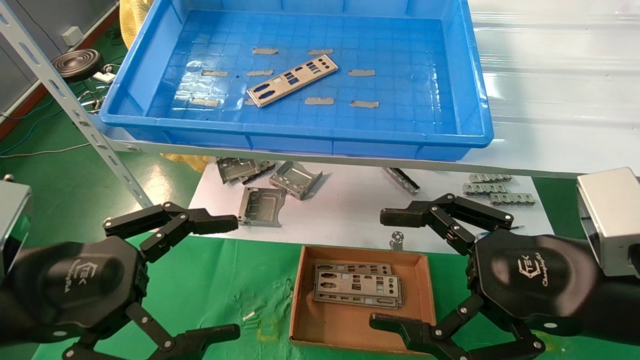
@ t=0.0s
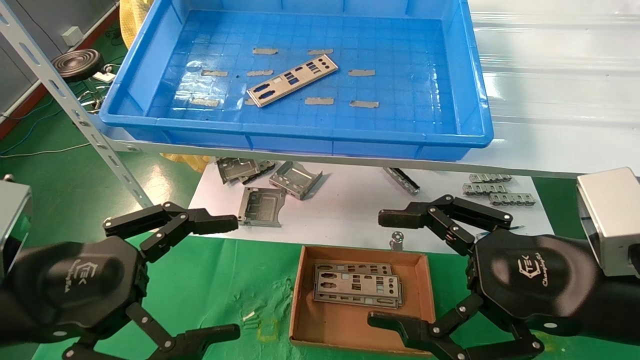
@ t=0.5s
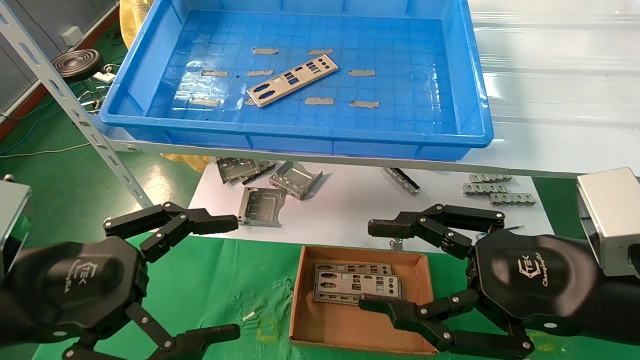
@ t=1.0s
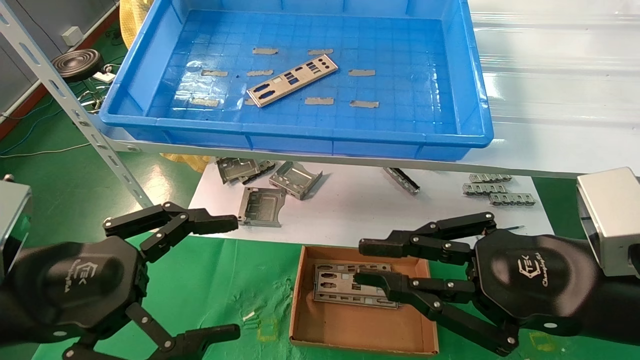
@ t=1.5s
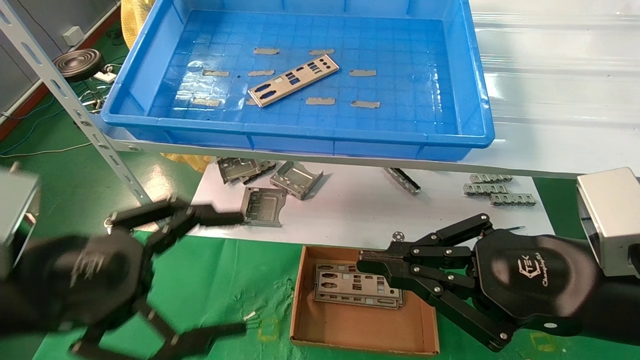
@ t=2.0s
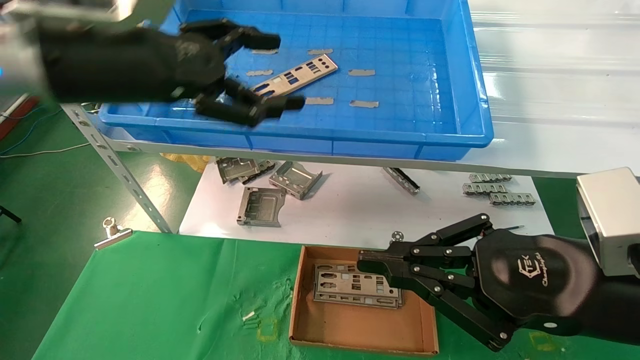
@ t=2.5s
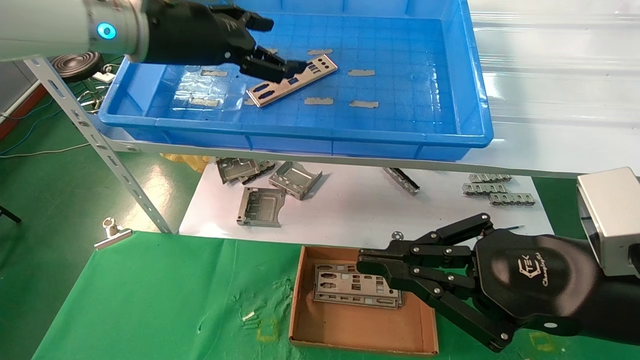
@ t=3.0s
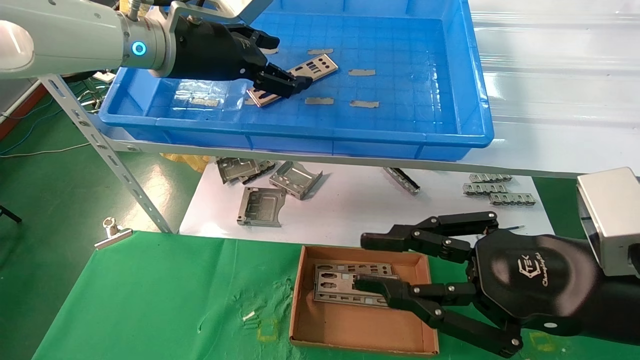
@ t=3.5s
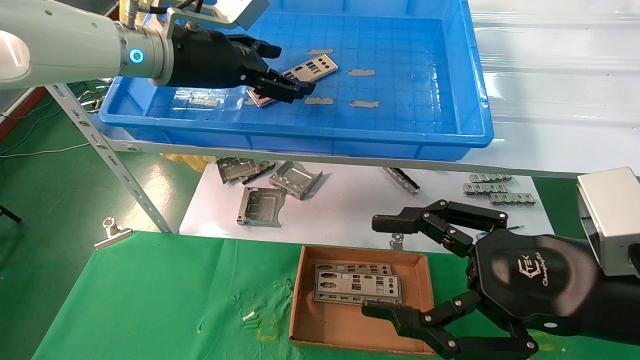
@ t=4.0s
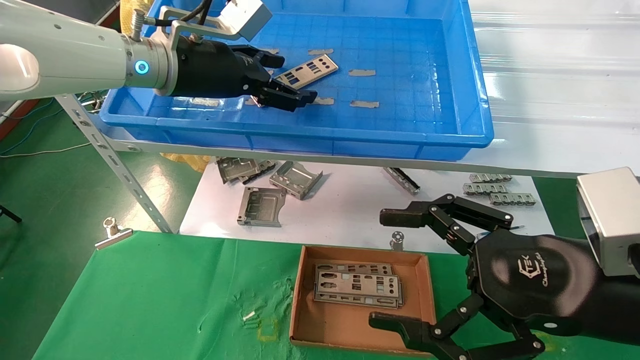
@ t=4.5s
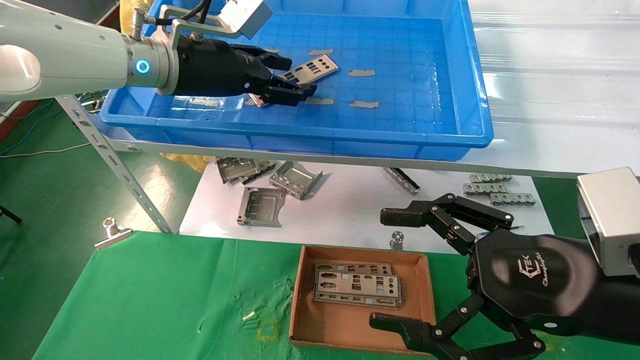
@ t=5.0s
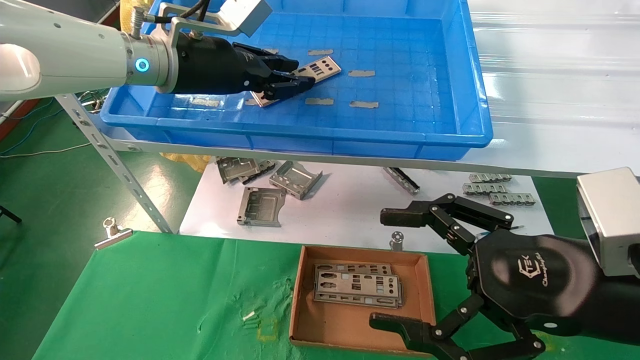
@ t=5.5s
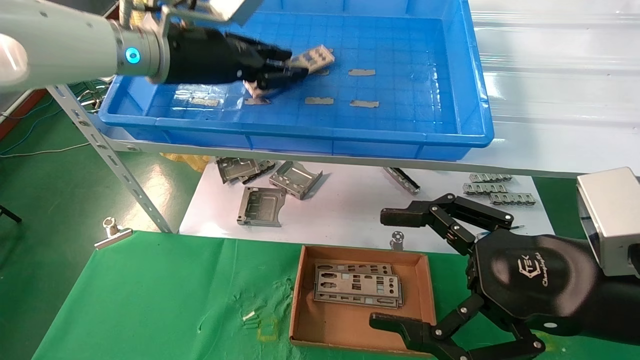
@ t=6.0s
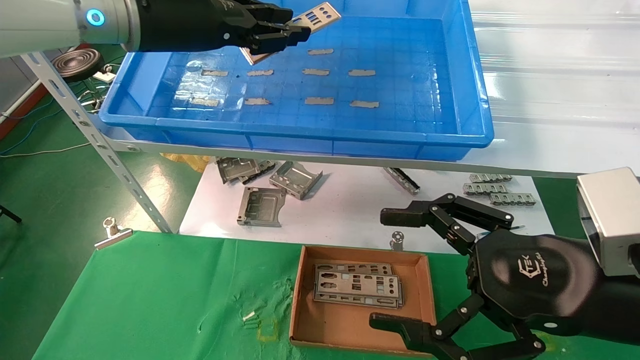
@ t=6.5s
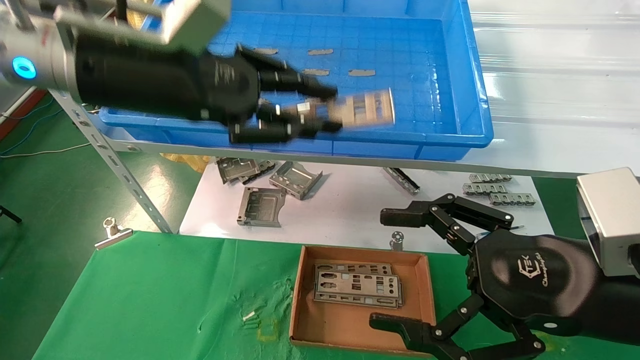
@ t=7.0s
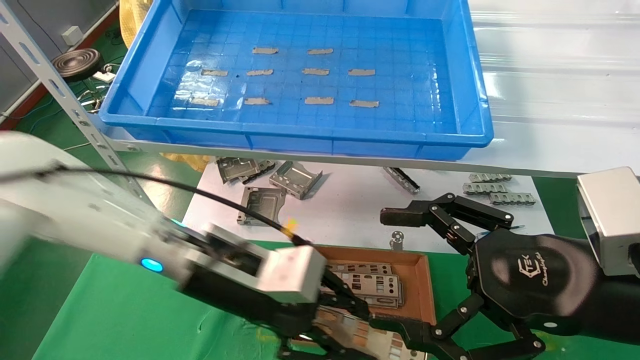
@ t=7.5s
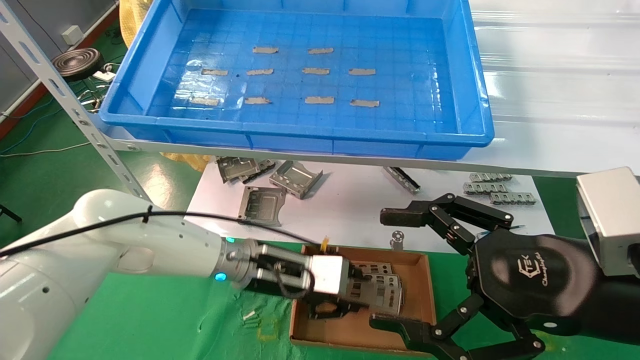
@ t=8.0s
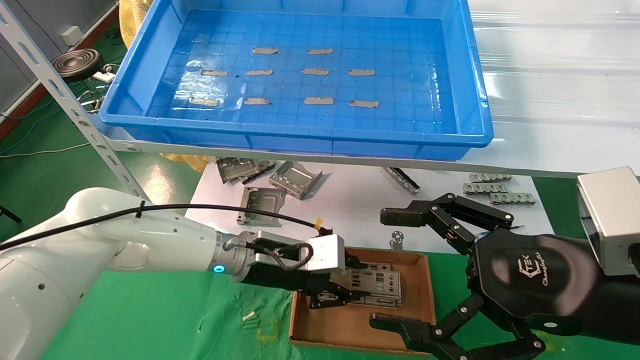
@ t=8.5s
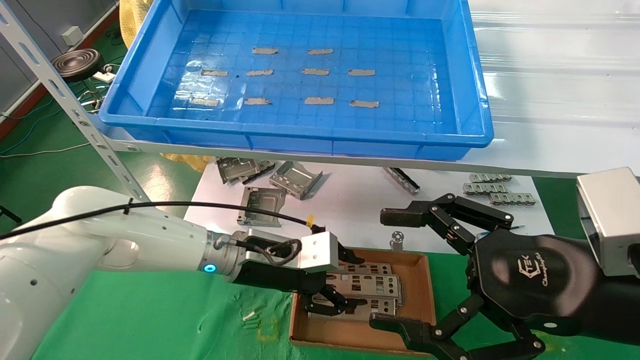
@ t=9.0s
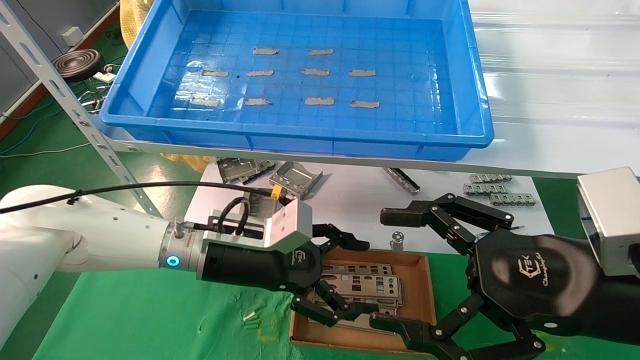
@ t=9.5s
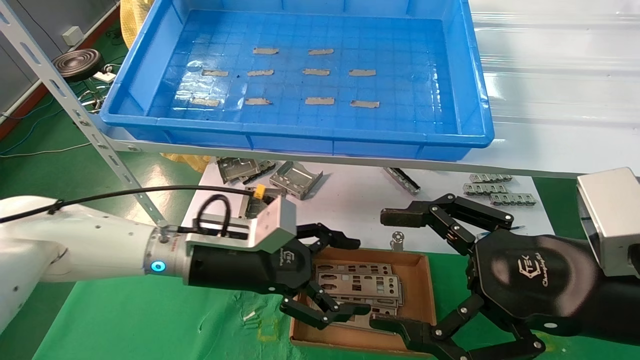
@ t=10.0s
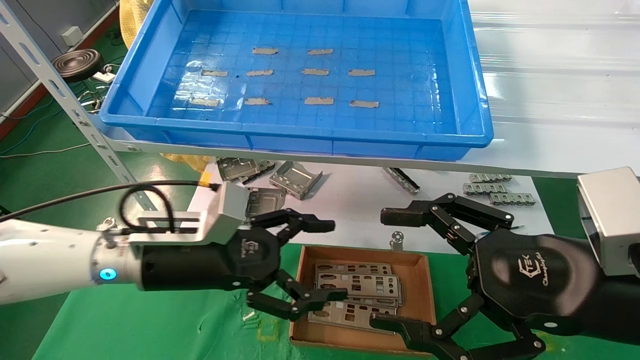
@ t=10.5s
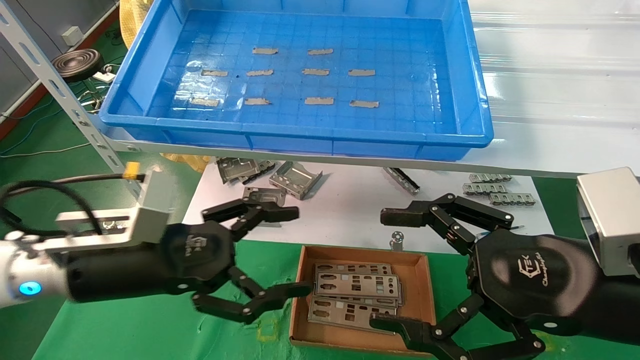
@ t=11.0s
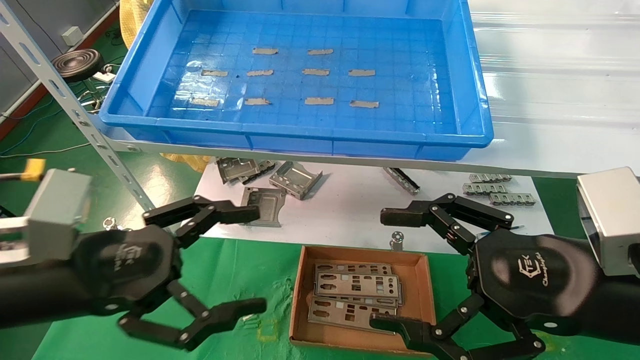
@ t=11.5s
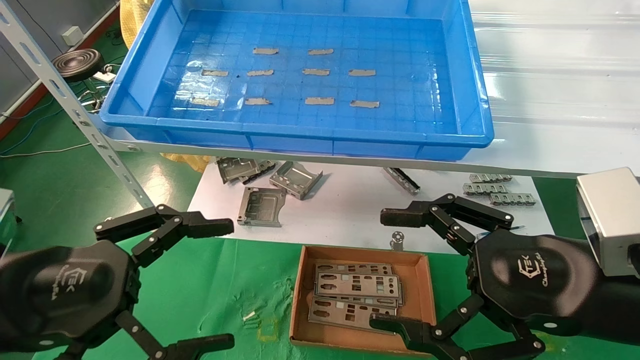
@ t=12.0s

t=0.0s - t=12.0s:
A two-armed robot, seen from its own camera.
Task of the whole recording: pick up the parts on the tray and put them in the cardboard box.
Step, t=2.5s - t=5.0s: Pick up the IO bracket from the container box.
Step, t=5.5s - t=9.0s: Place the IO bracket into the ingredient slot.
t=0.0s - t=2.0s: The right gripper closes up.
t=2.0s - t=4.0s: The left gripper shifts some 25 cm forward, upward and to the right, while the right gripper opens.
t=4.0s - t=6.0s: The right gripper opens its fingers, while the left gripper closes up.
t=6.0s - t=8.0s: The left gripper heads downward, covering approximately 30 cm.
t=8.0s - t=10.0s: The left gripper is displaced to the left by roughly 5 cm, and opens its fingers.
t=10.0s - t=12.0s: The left gripper is displaced backward and to the left by roughly 20 cm.

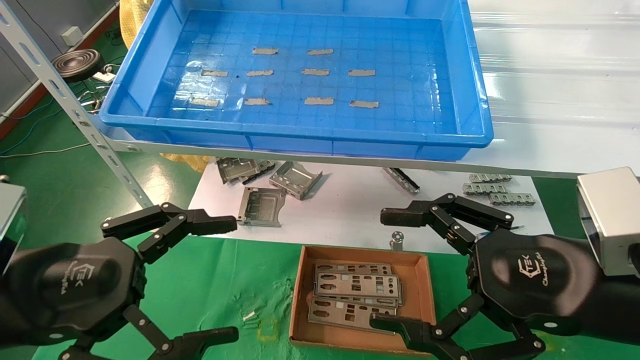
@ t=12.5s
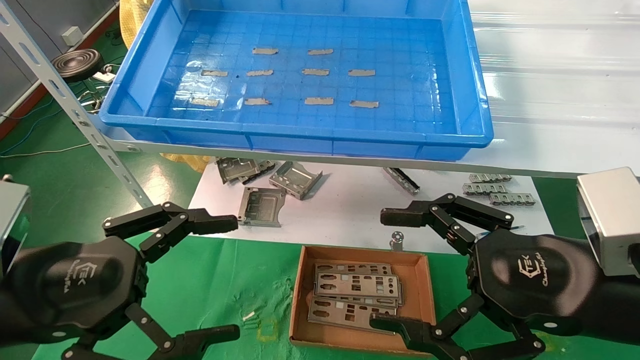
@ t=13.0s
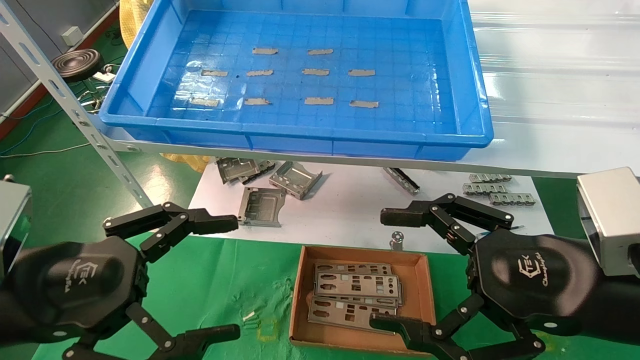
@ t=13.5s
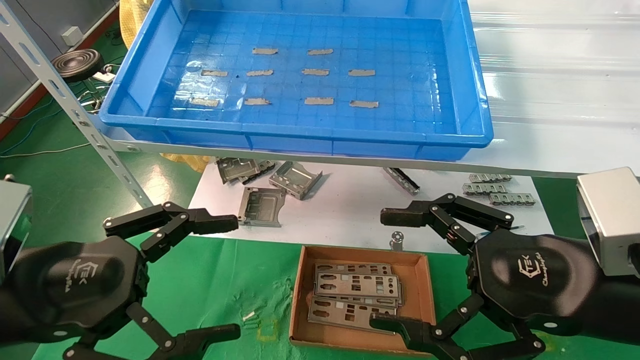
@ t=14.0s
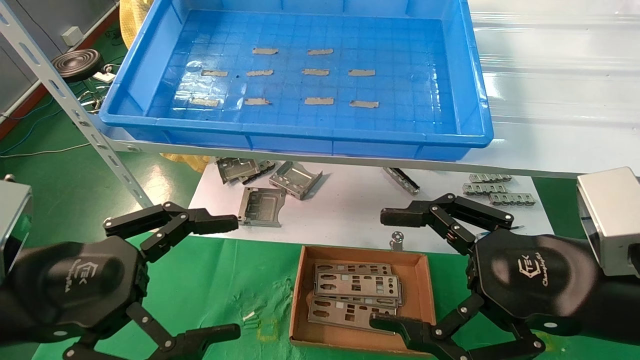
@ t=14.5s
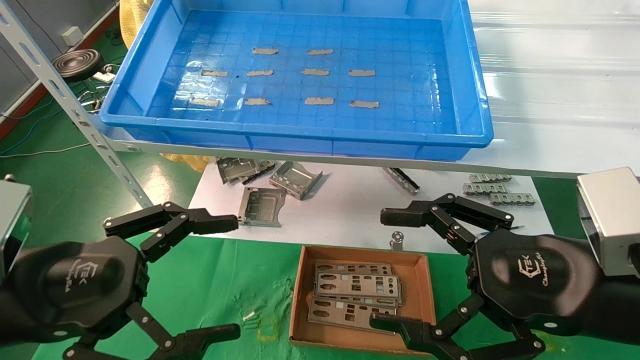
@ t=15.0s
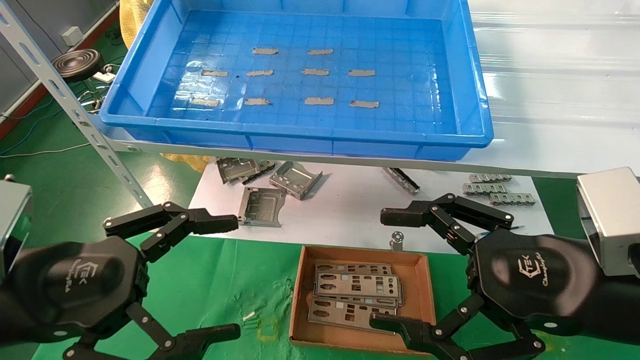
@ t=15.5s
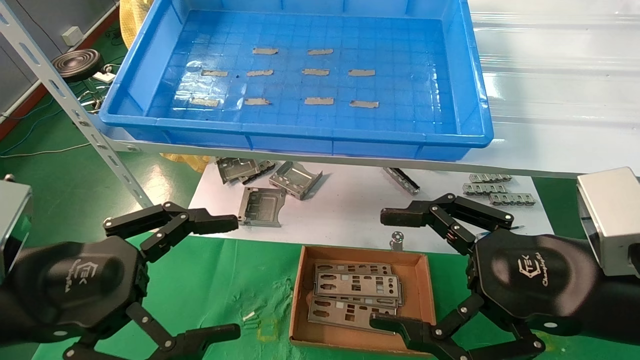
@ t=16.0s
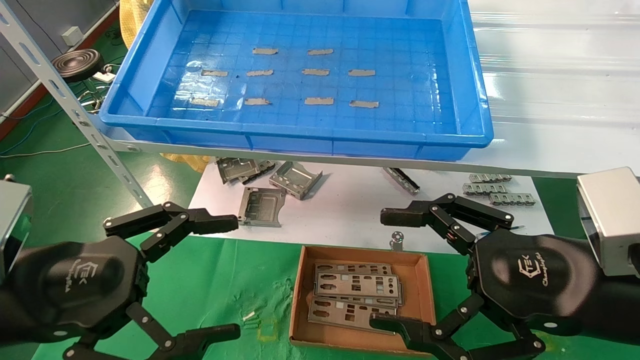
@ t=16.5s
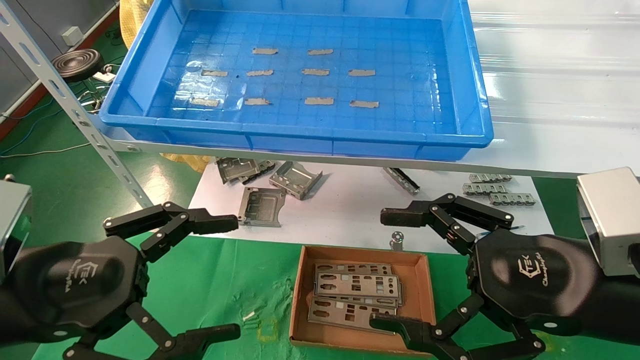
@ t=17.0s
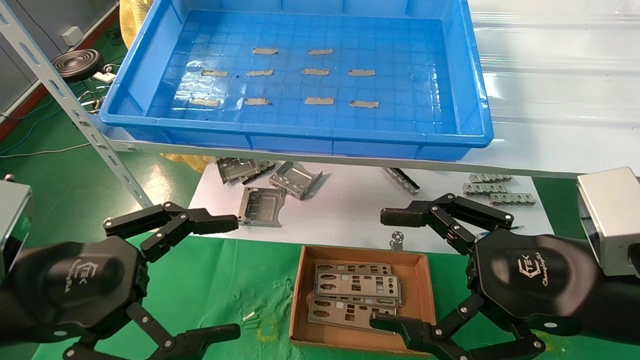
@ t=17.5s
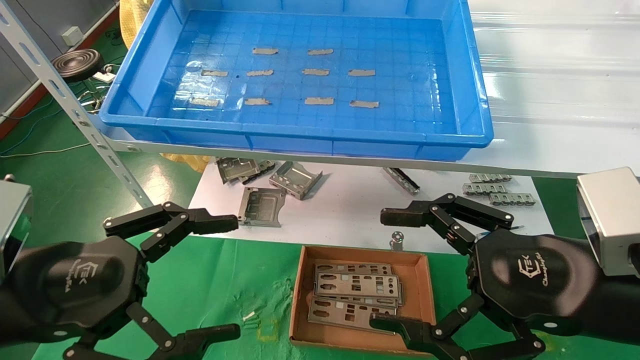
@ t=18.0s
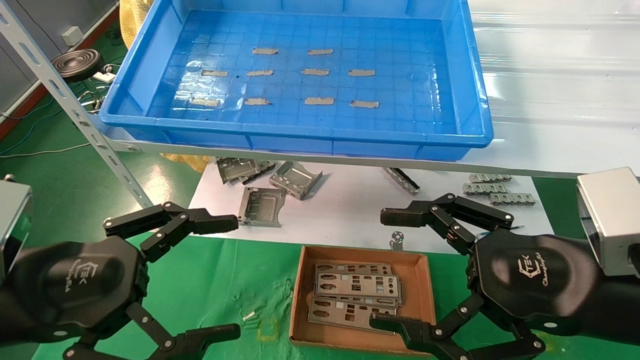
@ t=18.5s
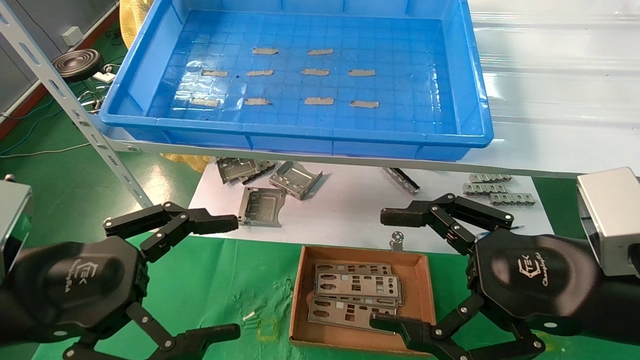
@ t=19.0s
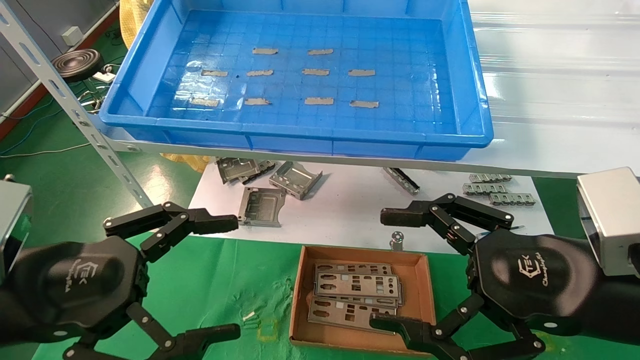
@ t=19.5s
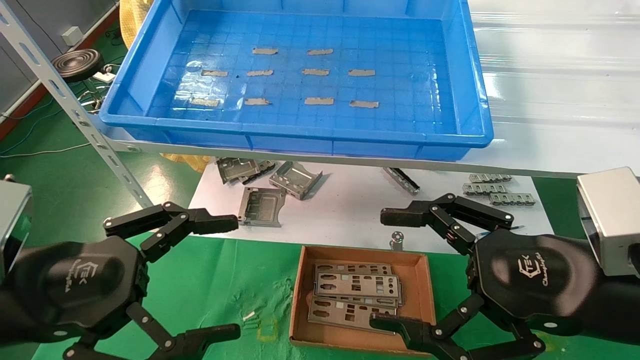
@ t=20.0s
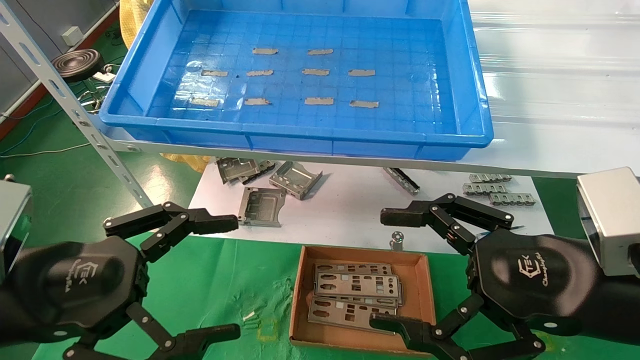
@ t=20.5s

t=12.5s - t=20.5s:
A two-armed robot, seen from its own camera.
Task of the whole recording: pick up the parts on the tray and put them in the cardboard box.
t=12.5s - t=20.5s: Both grippers stay put.
